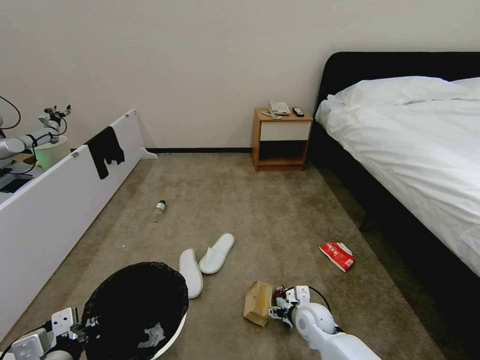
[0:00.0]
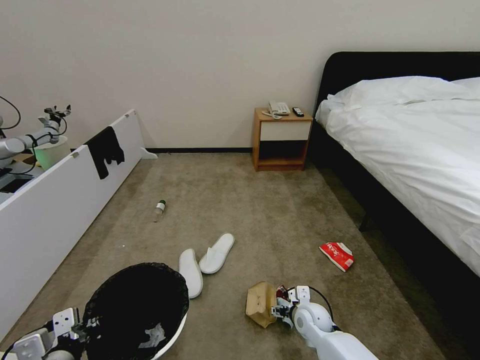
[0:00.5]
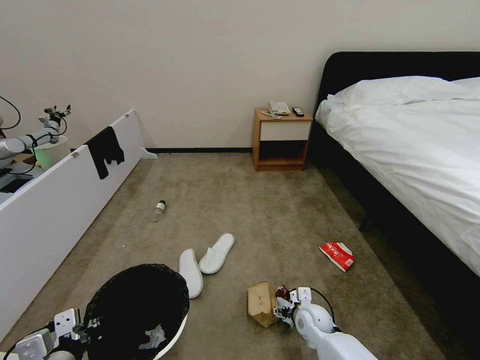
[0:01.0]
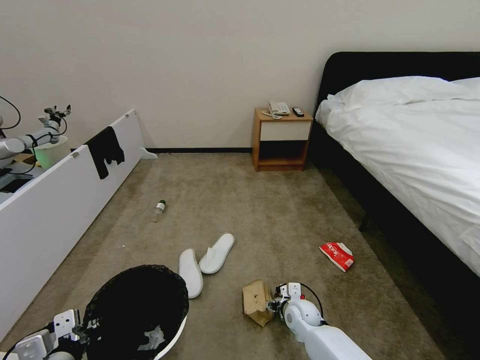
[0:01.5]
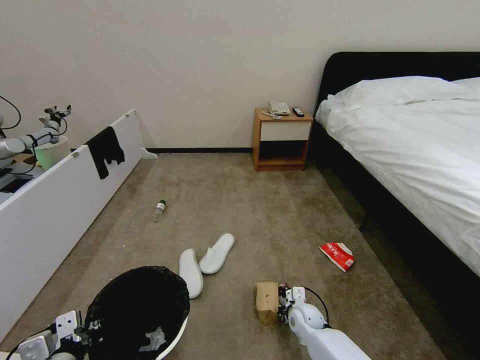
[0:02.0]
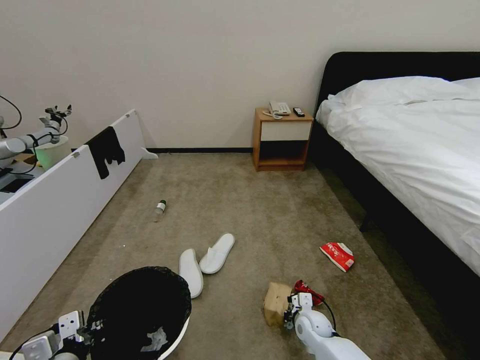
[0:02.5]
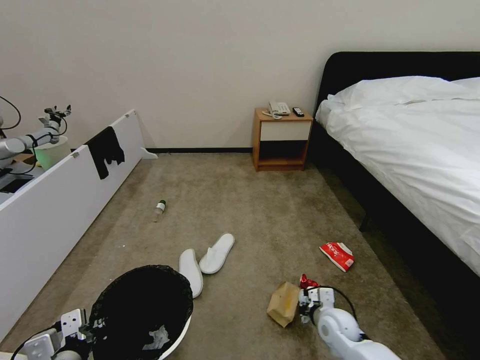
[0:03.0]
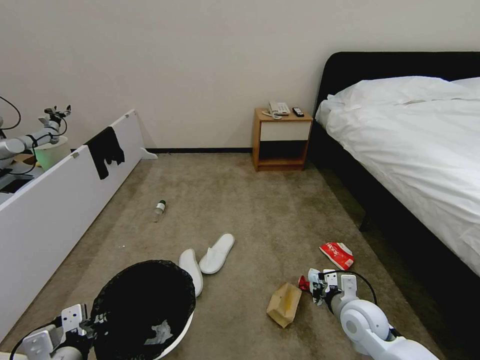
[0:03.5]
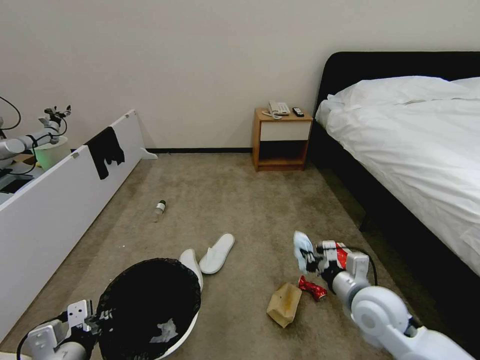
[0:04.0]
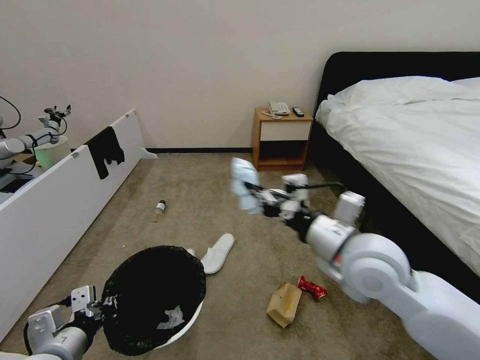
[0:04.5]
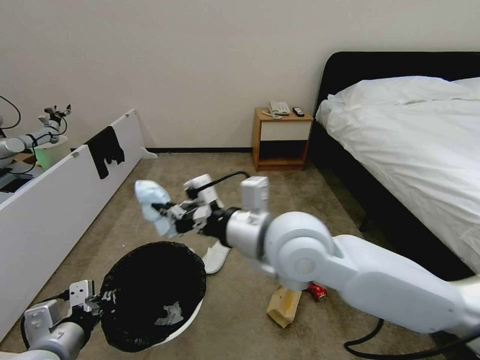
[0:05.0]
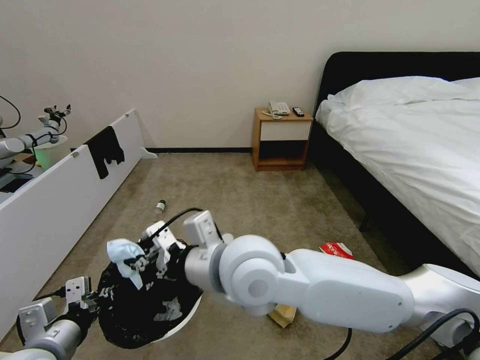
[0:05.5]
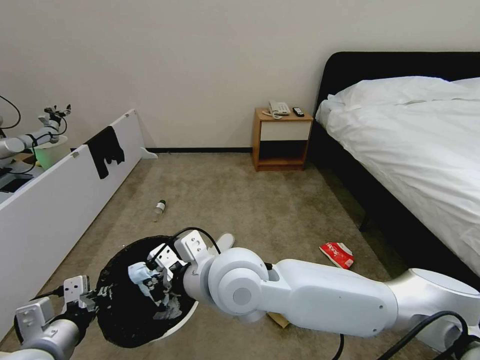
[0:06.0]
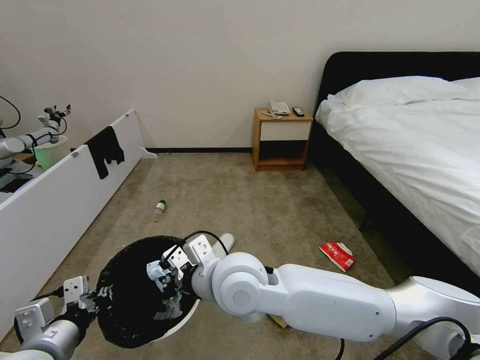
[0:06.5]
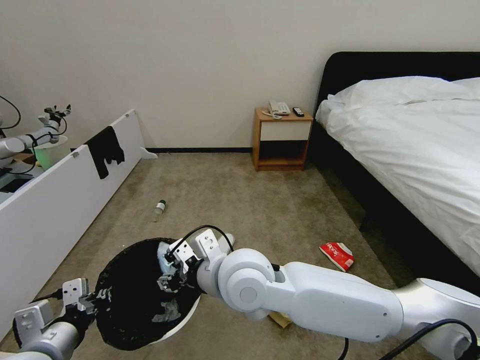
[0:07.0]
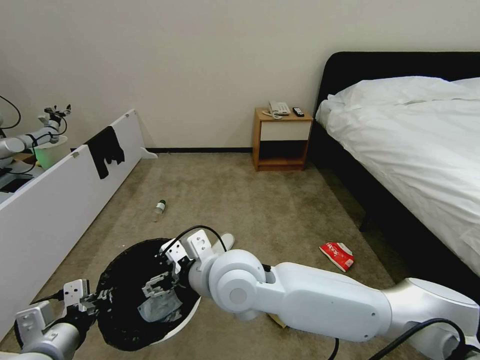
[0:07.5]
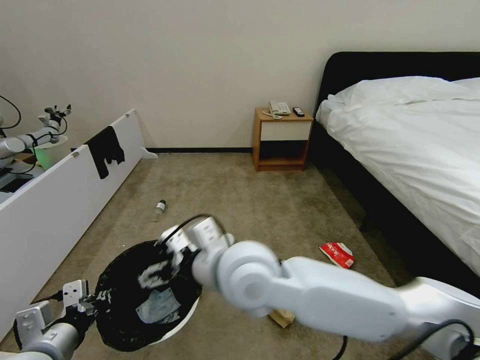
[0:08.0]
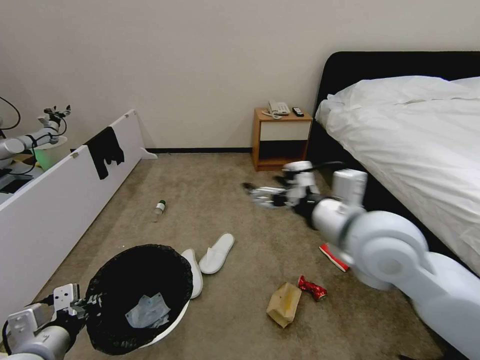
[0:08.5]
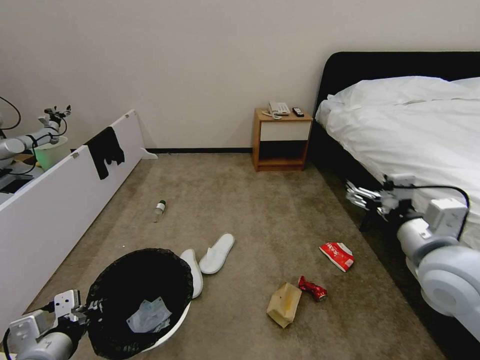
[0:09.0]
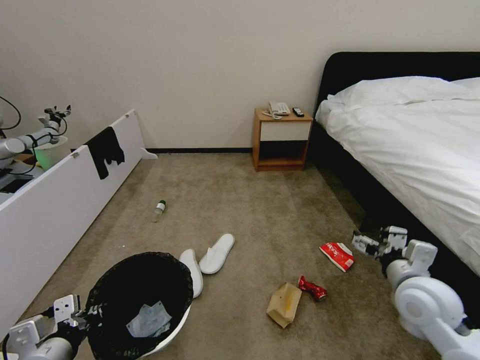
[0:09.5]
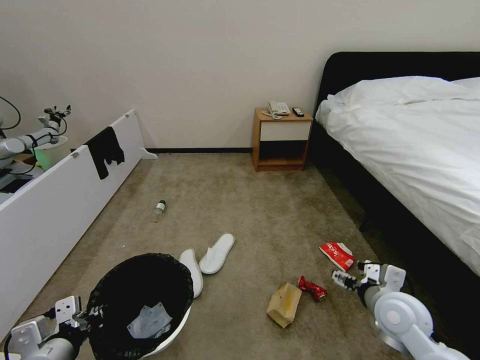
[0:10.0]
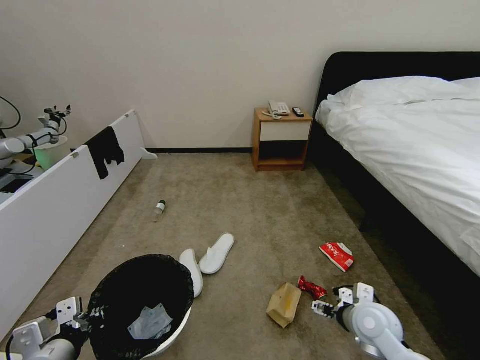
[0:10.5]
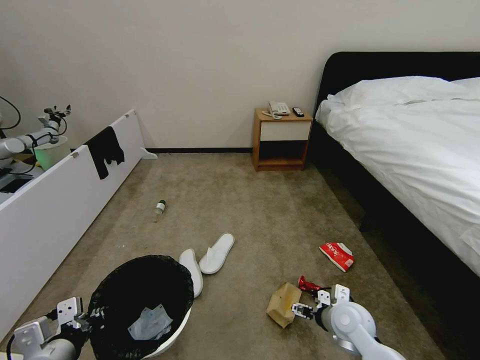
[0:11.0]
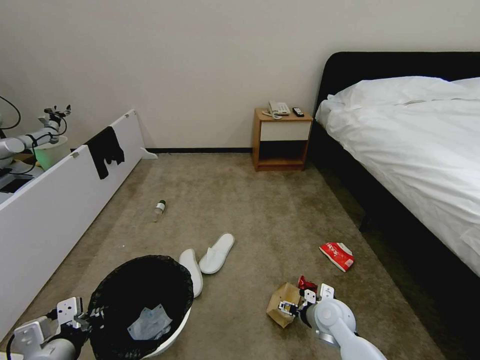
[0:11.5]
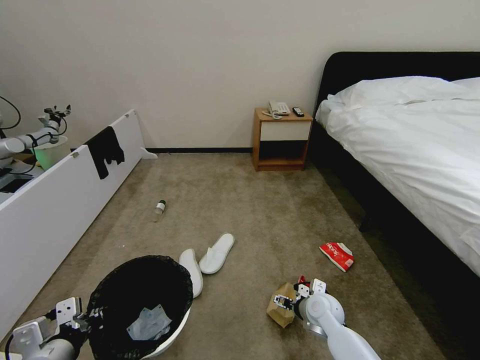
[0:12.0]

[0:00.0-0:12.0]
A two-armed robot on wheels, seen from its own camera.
Task of the whole recording: Pick up the trash bin, then pick up the garbage from the floor and place it into the trash bin.
0:00.0 to 0:02.0: The right gripper moves downward, some 5 cm, and closes up.
0:02.0 to 0:04.0: The right gripper is displaced upward by some 25 cm.
0:04.0 to 0:06.0: The left gripper moves approximately 5 cm, while the right gripper shifts about 30 cm to the left and upward.
0:06.0 to 0:08.0: The right gripper opens up.
0:08.0 to 0:10.0: The right gripper heads to the right and downward, covering about 35 cm.
0:10.0 to 0:12.0: The right gripper is displaced downward, to the left and forward by approximately 20 cm.

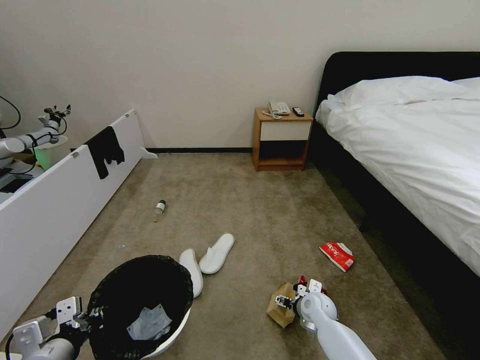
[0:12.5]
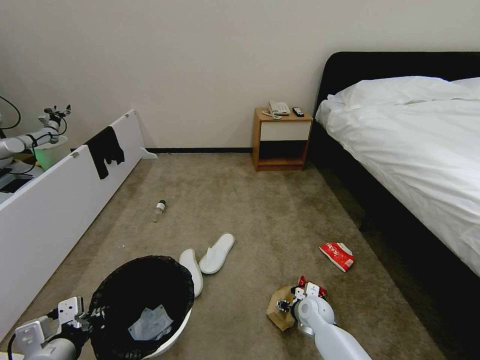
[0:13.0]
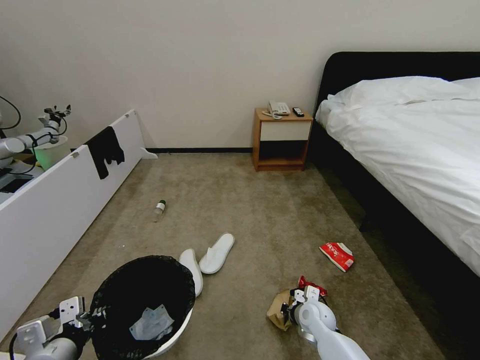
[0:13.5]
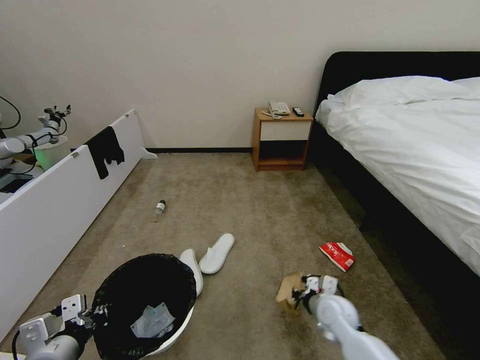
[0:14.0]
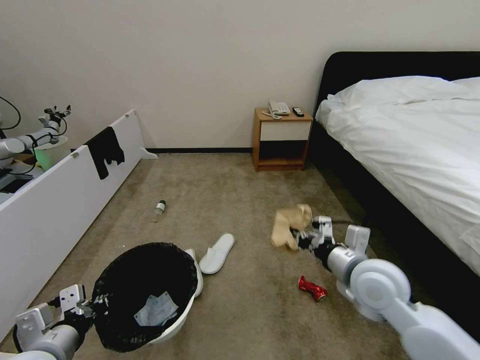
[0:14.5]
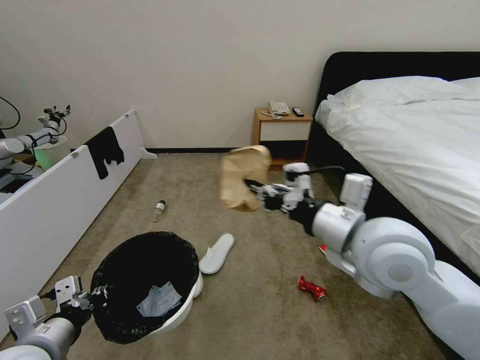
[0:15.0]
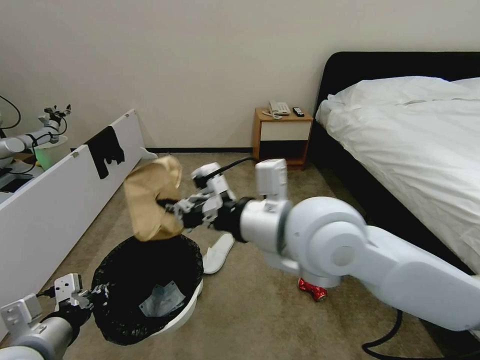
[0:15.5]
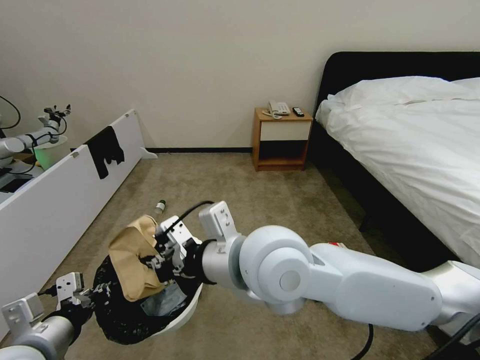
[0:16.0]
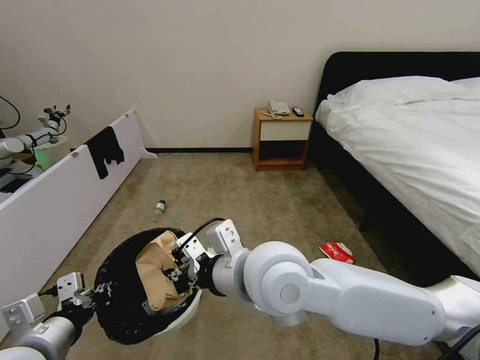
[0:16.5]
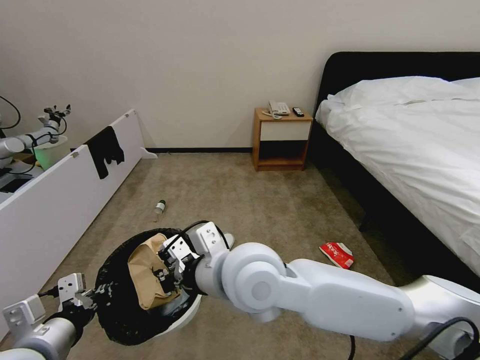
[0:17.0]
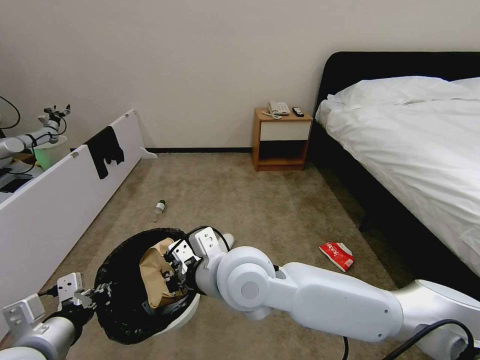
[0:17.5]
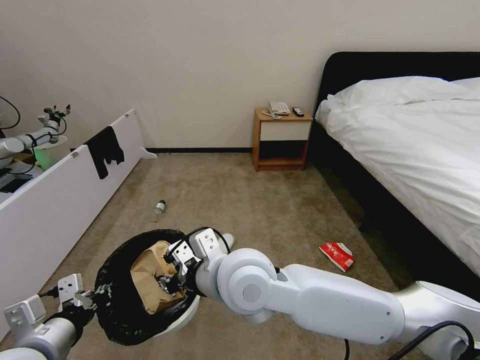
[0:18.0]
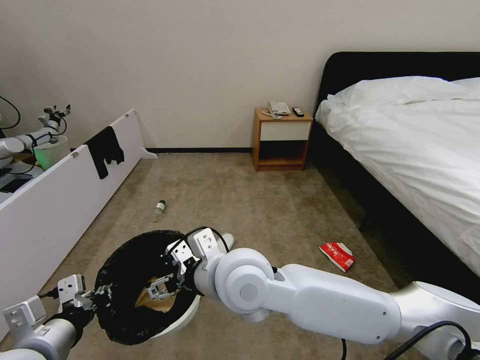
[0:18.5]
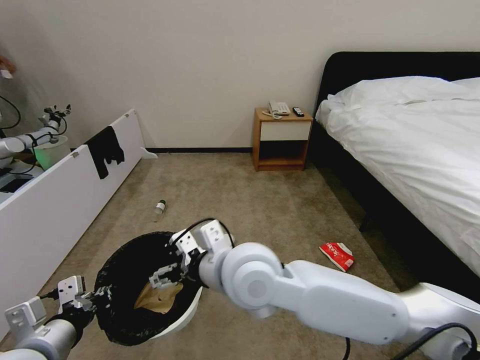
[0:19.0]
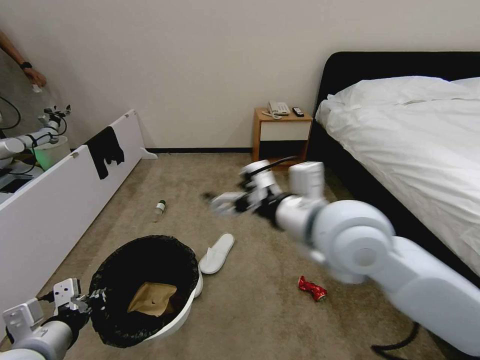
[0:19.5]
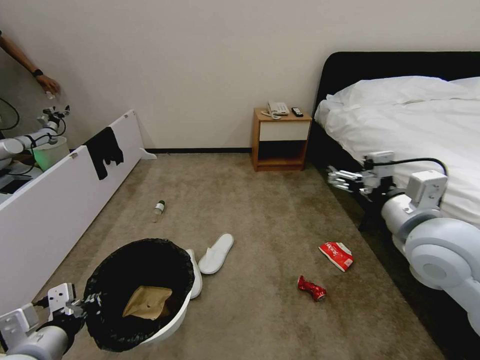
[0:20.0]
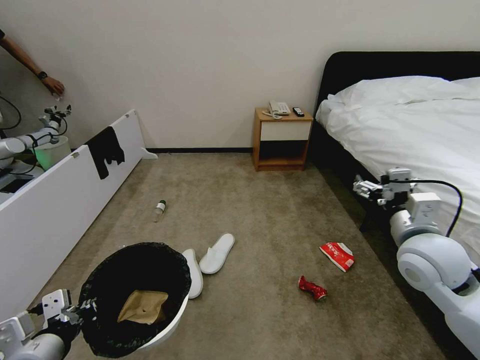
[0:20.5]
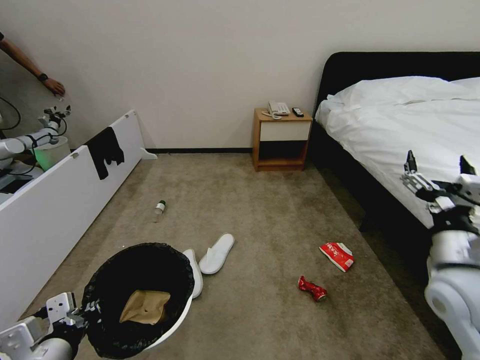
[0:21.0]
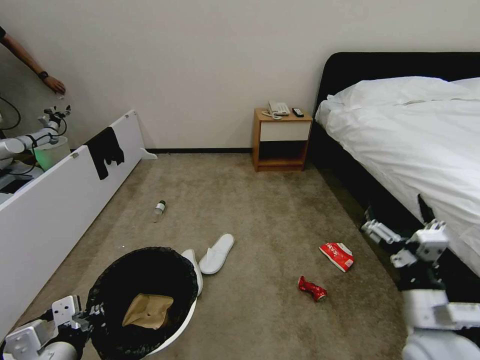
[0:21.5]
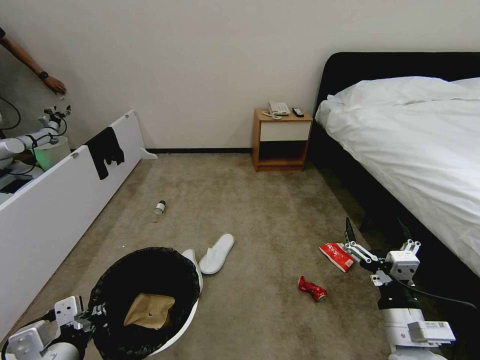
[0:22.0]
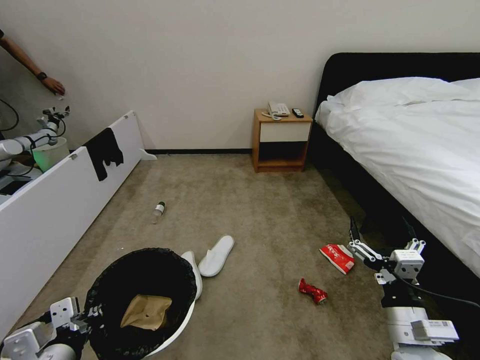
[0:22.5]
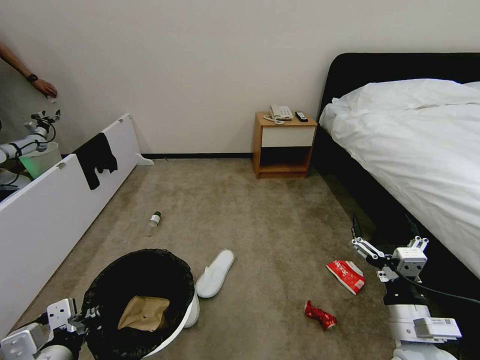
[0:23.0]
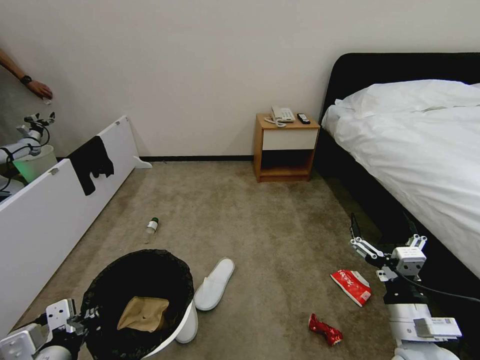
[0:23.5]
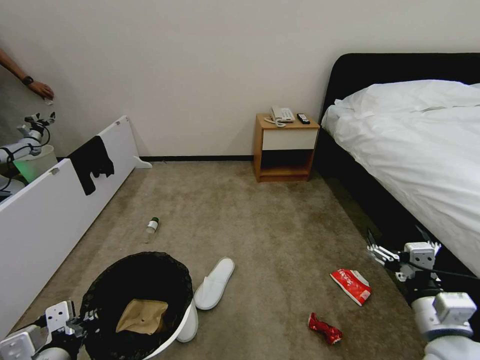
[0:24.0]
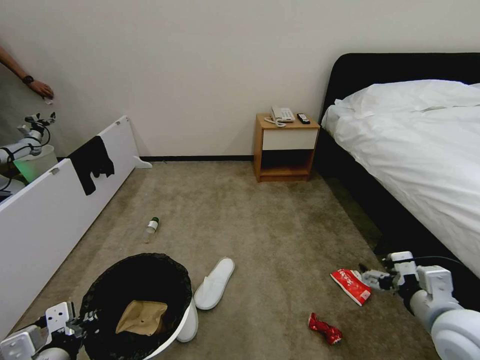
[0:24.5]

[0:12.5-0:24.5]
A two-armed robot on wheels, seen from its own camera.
Task of the whole recording: Pick up the trash bin, then pick up the garbage from the floor and place it into the trash bin.
0:12.5 to 0:14.5: The right gripper travels upward by about 25 cm, and closes.
0:14.5 to 0:16.5: The right gripper heads to the left and upward, covering roughly 25 cm. Meanwhile the left gripper goes some 5 cm upward.
0:16.5 to 0:18.5: The right gripper shifts by about 5 cm, and opens up.
0:18.5 to 0:20.5: The right gripper heads to the right, covering some 35 cm.
0:20.5 to 0:22.5: The right gripper travels backward and downward by approximately 20 cm.
0:22.5 to 0:24.5: The right gripper shifts about 10 cm upward and to the right.

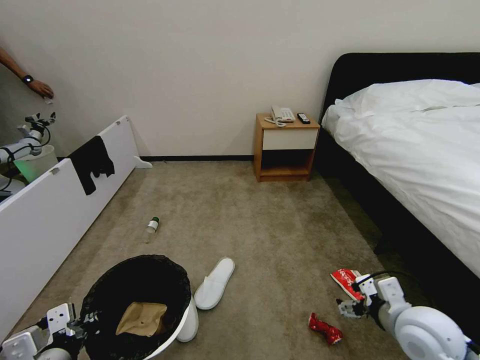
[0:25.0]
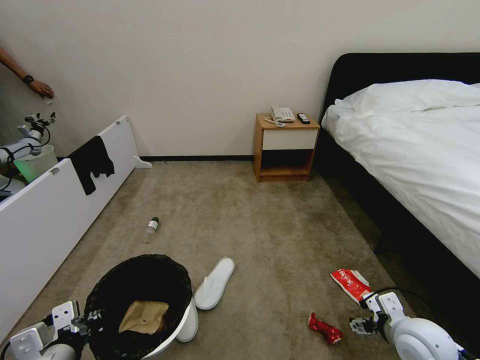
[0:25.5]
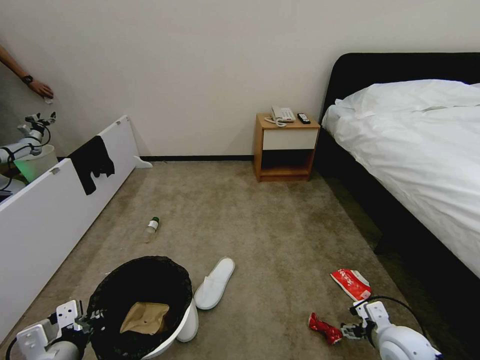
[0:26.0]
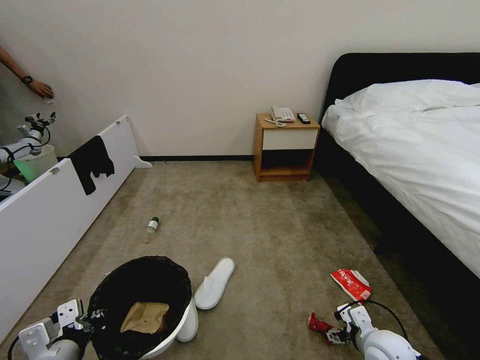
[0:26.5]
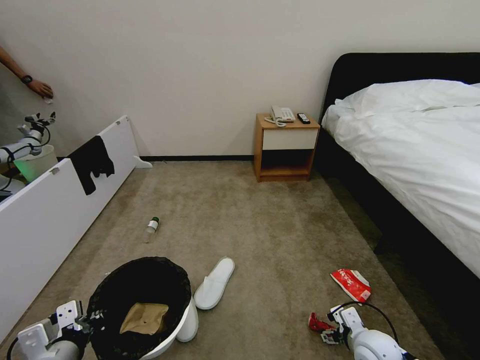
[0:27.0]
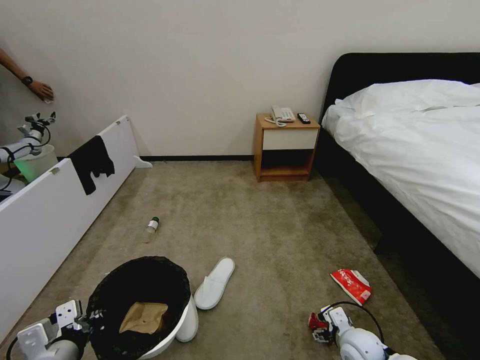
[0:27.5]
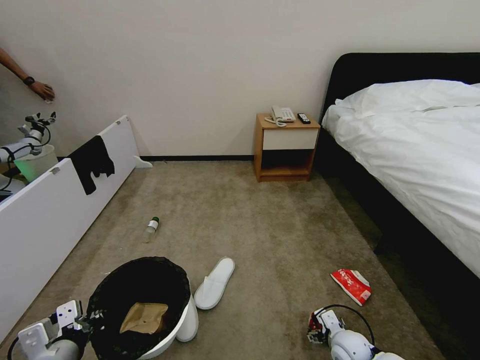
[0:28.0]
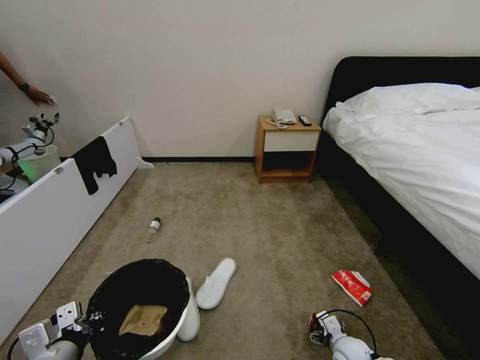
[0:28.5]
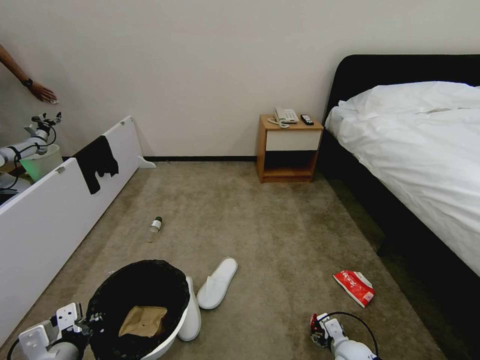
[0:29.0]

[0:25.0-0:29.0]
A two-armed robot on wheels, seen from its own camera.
Task of the whole recording: Pick up the trash bin, then pick up the garbage from the floor and place it into the trash bin.
0:25.0 to 0:27.0: The right gripper moves downward, roughly 15 cm.
0:27.0 to 0:29.0: The right gripper travels downward by roughly 10 cm.
